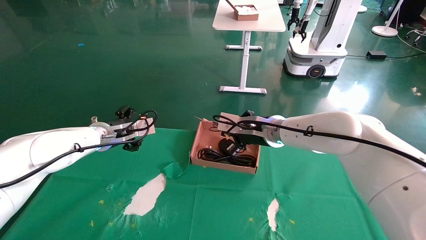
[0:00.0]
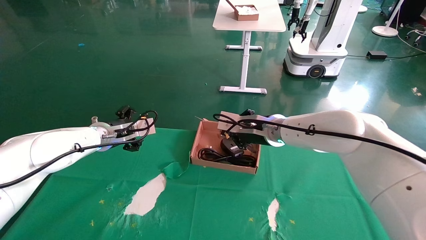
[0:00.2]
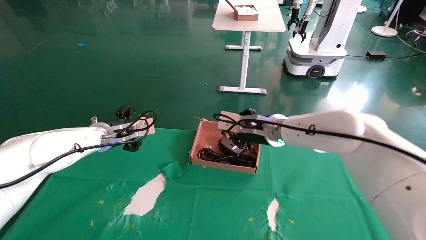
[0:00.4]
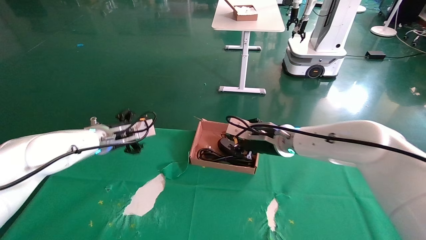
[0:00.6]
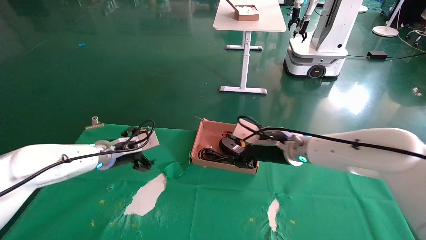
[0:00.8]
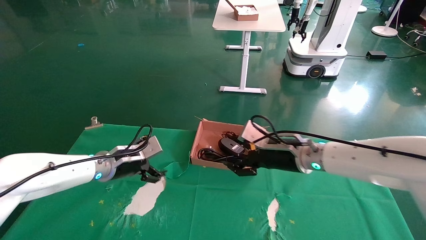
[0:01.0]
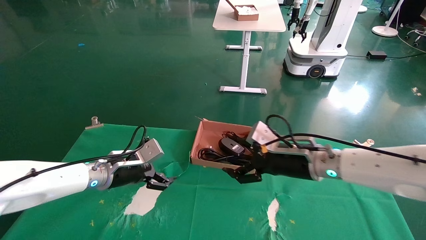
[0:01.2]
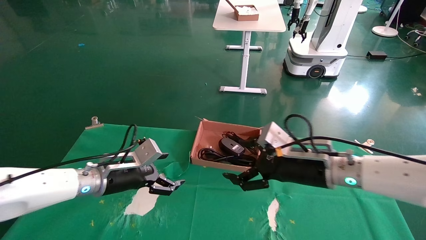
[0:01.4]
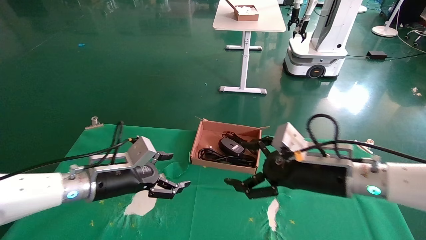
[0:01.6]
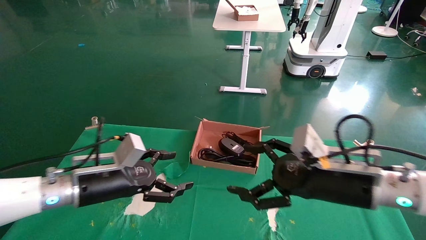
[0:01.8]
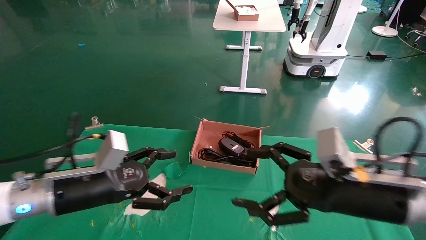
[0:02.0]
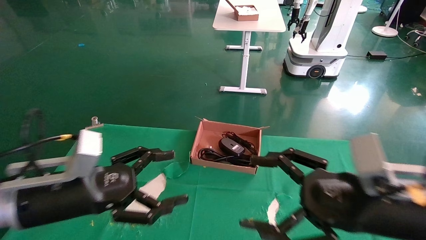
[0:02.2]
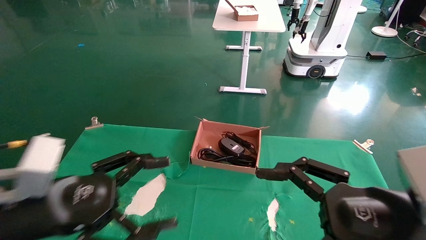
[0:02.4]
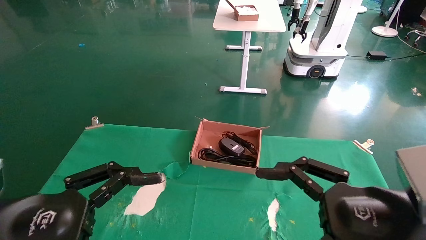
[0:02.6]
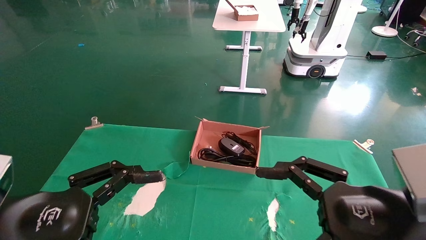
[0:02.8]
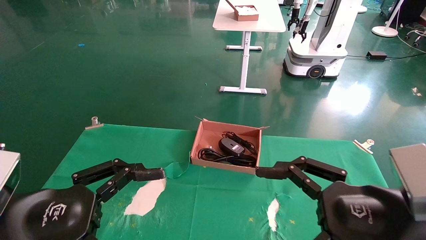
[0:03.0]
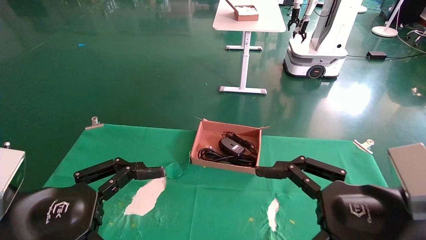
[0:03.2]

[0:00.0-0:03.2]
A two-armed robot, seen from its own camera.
0.0 to 1.6 s: The right gripper goes about 15 cm backward and to the right, and opens up, while the left gripper goes roughly 15 cm backward and downward.
1.6 to 3.2 s: The grippers both shift backward by some 15 cm.

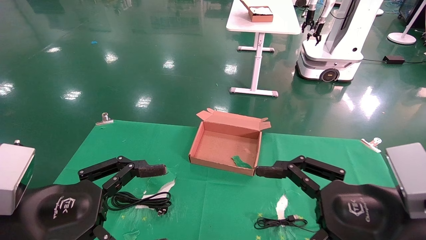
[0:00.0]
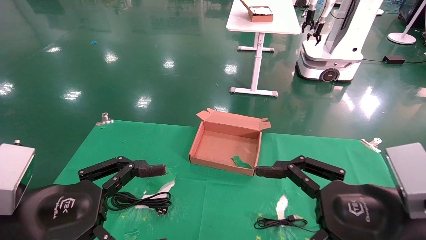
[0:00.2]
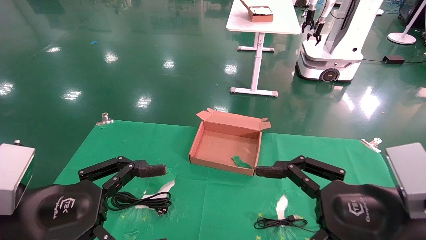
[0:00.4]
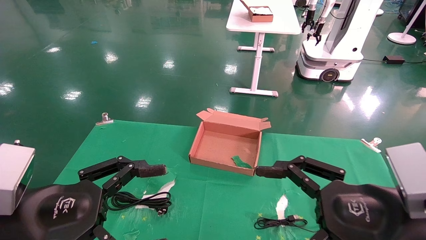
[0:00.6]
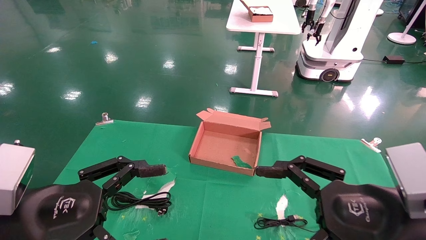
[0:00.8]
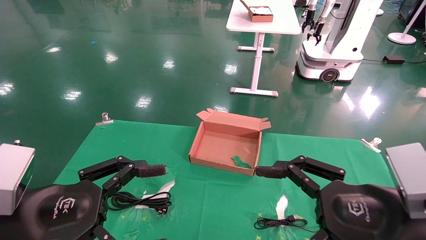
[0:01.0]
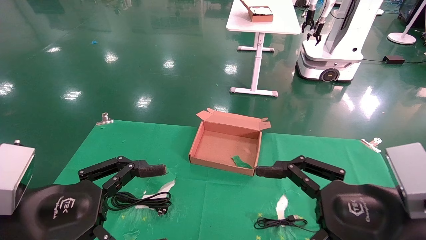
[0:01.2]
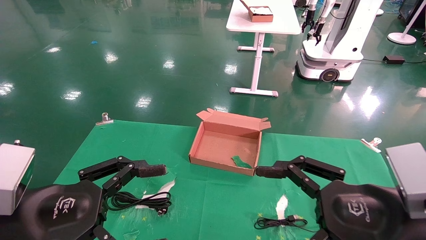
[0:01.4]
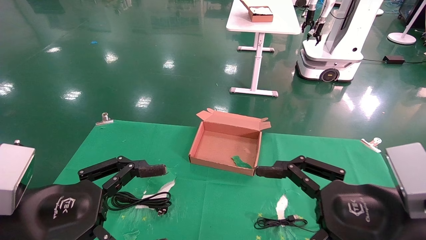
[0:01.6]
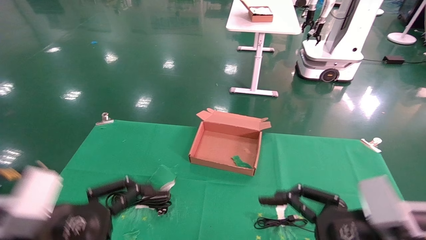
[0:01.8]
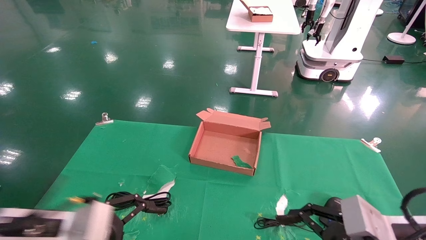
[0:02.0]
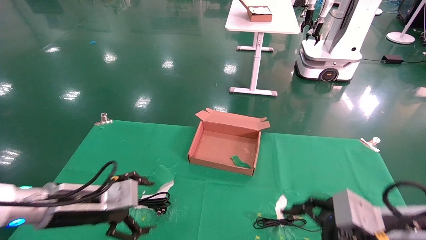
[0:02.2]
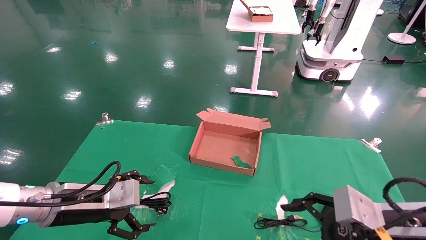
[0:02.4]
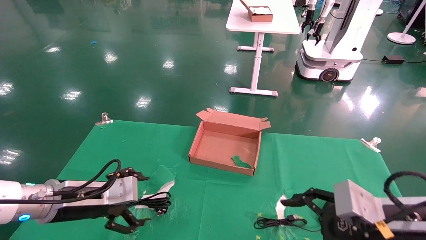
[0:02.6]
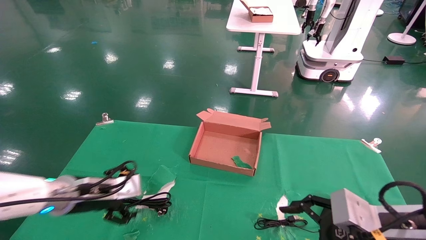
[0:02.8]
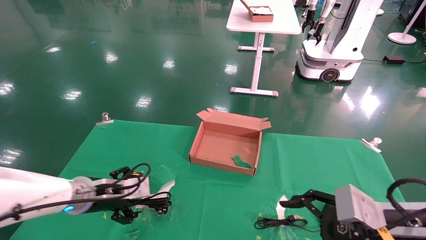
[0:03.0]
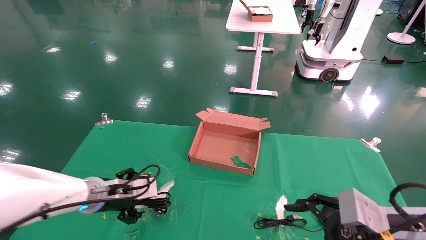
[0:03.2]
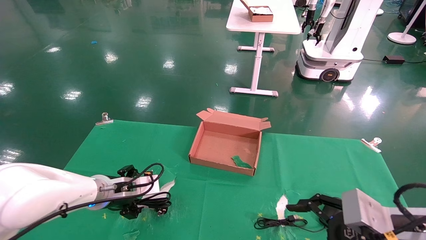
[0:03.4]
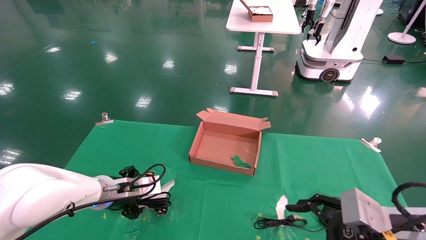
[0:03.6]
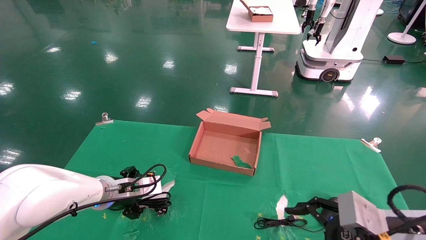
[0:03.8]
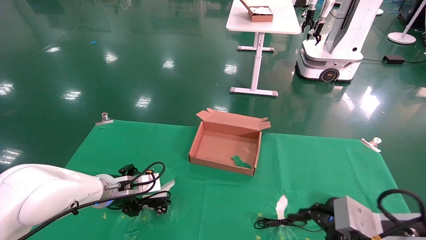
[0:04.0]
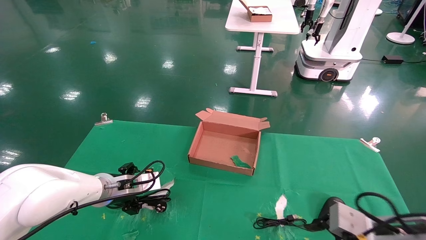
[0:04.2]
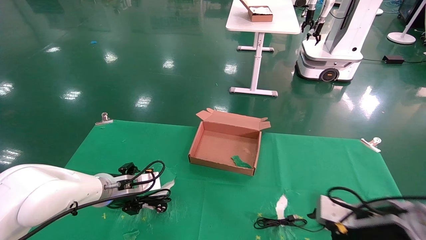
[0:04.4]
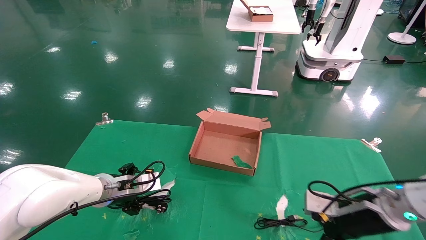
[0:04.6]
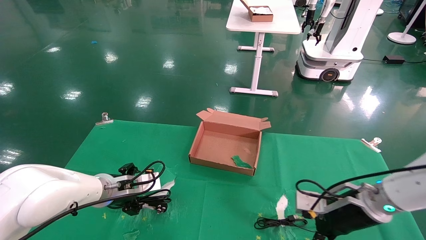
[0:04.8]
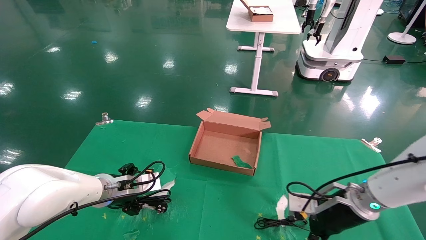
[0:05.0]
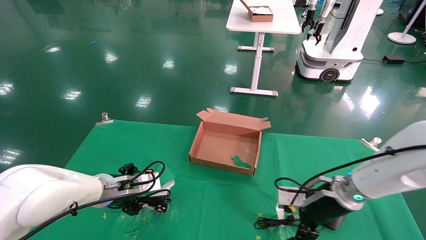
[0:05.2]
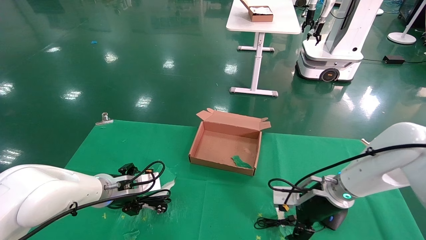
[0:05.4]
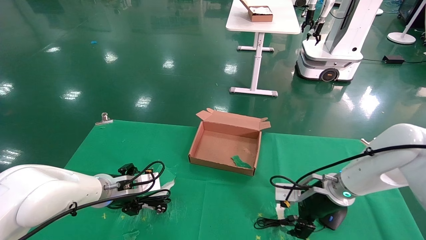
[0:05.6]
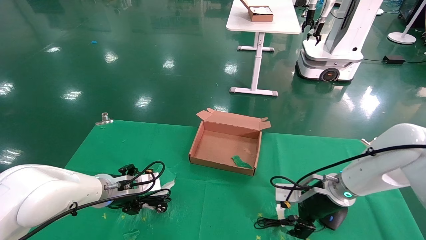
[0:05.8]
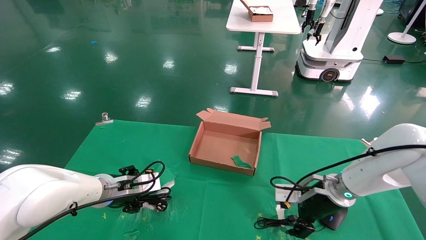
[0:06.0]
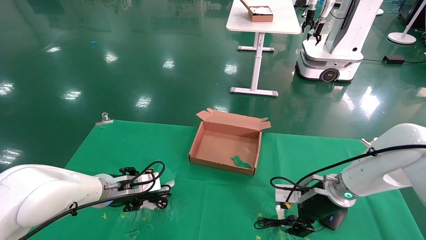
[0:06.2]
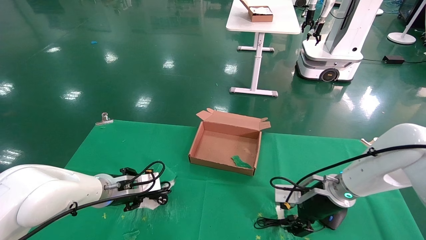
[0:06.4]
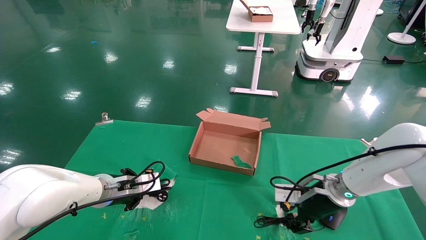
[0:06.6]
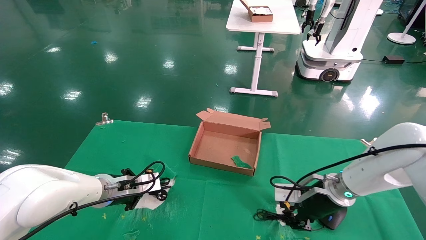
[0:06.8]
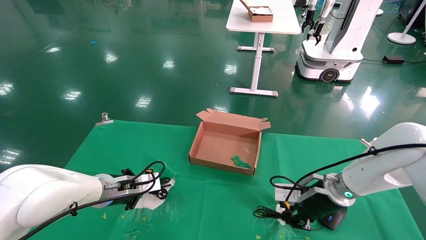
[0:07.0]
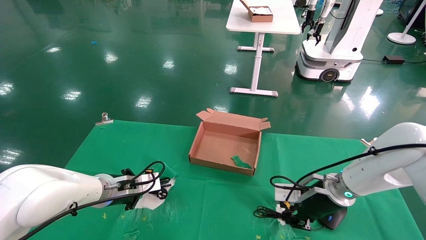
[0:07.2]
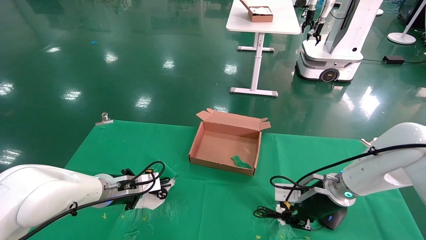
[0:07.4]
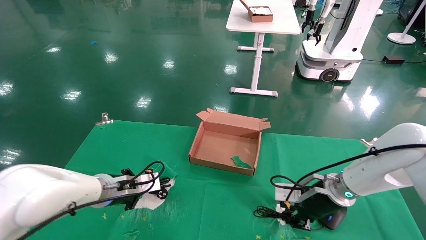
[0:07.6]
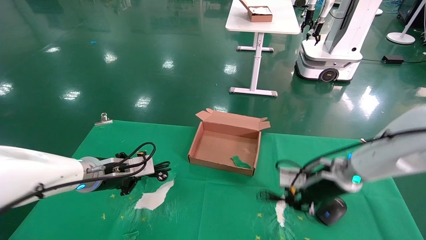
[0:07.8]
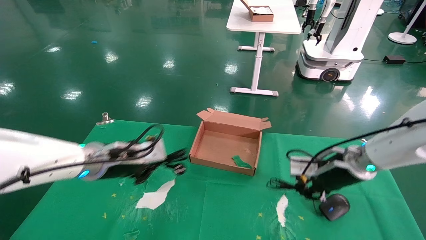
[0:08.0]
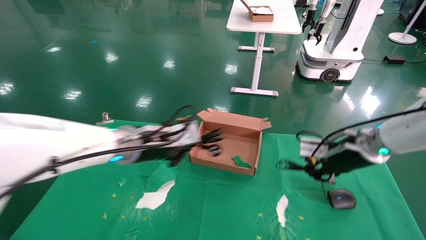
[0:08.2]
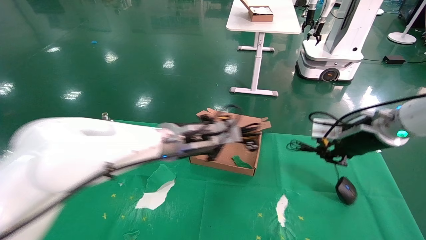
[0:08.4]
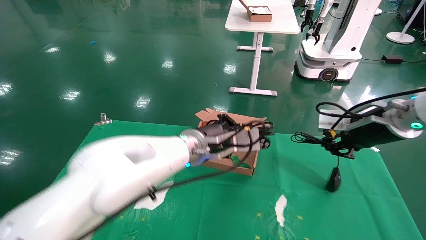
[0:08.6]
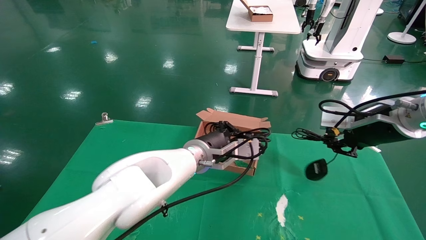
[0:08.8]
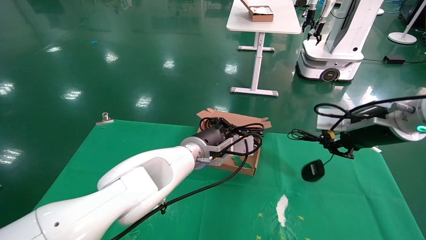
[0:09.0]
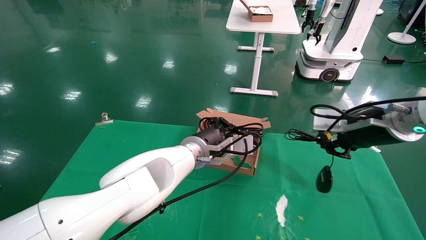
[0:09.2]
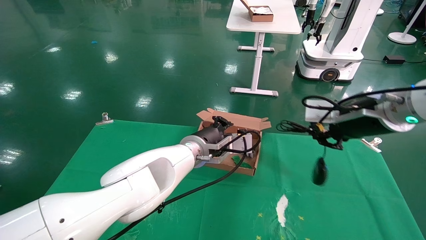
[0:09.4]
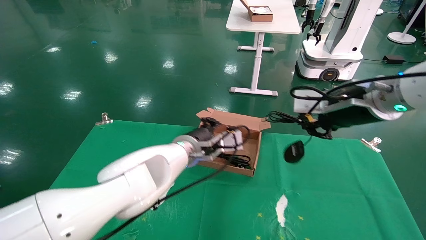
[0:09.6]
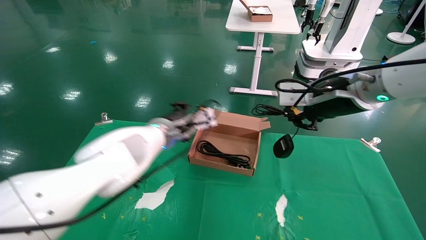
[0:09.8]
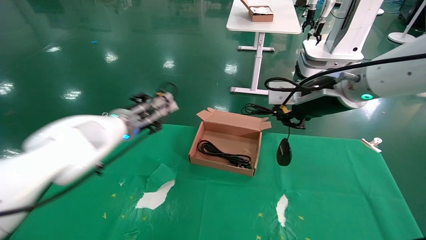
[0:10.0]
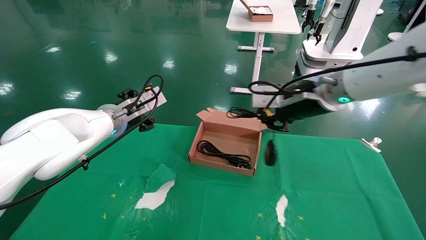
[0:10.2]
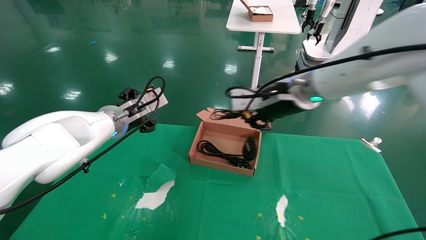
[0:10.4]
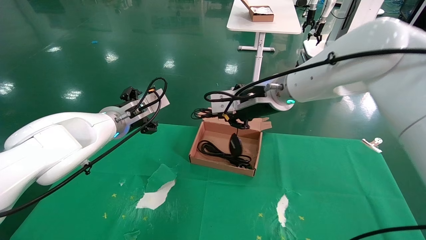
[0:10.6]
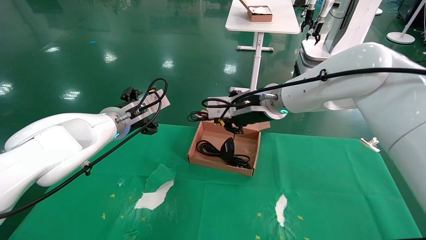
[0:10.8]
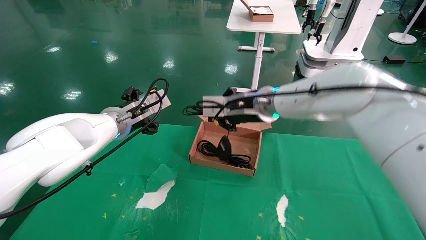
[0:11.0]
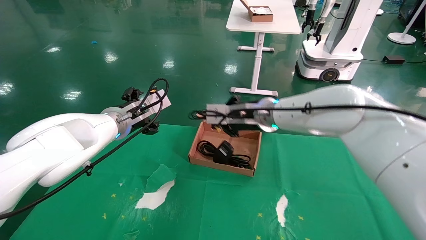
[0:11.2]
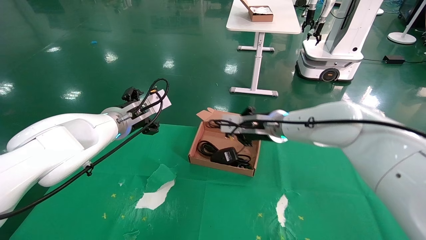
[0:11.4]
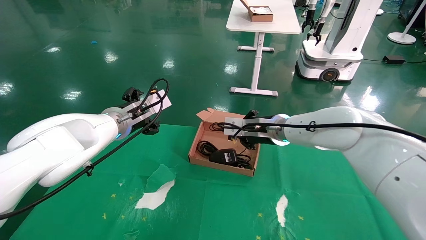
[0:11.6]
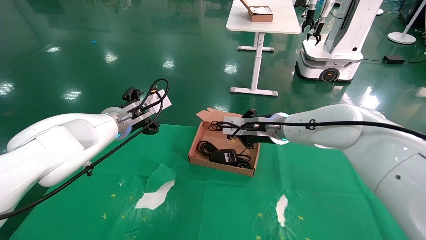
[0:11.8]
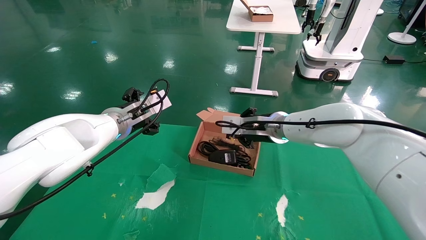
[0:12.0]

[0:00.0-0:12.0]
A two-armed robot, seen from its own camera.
Step, 2.0 to 7.4 s: Grab and lift both the mouse and power cord from the accessory packaging area at the same time.
1.6 to 3.0 s: The right gripper moves some 5 cm. Meanwhile the left gripper goes about 20 cm forward.
3.0 to 4.4 s: The right gripper heads forward, covering roughly 10 cm.
4.4 to 6.0 s: The right gripper travels forward and to the left by about 15 cm.
6.0 to 7.6 s: The left gripper closes its fingers, while the right gripper closes.
7.6 to 9.0 s: The right gripper moves upward, approximately 15 cm, while the left gripper is displaced to the right by about 20 cm.
9.0 to 10.4 s: The two grippers go some 15 cm to the left. The left gripper opens.
10.4 to 12.0 s: The right gripper is displaced downward and forward by roughly 10 cm.

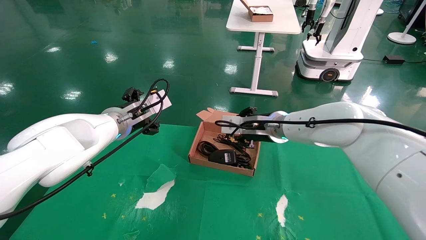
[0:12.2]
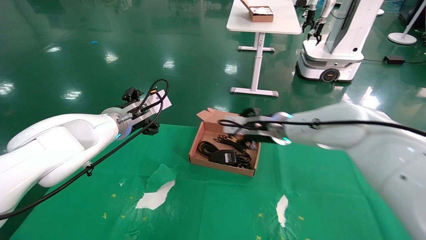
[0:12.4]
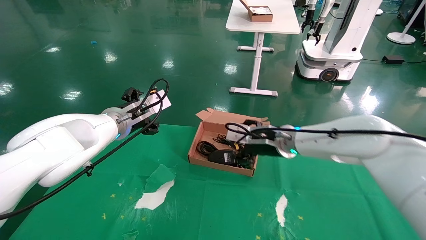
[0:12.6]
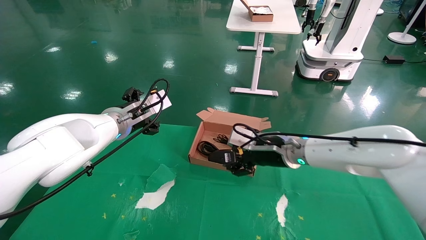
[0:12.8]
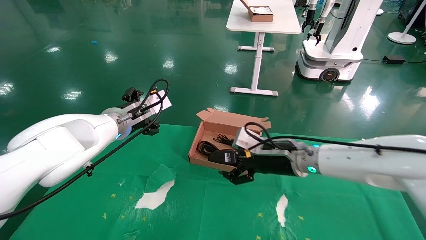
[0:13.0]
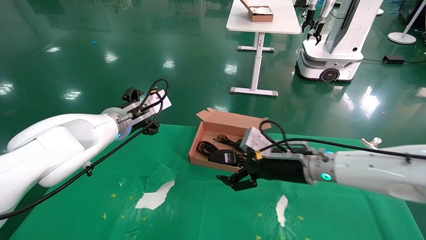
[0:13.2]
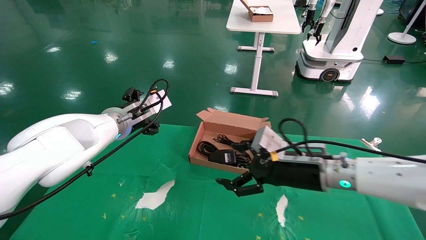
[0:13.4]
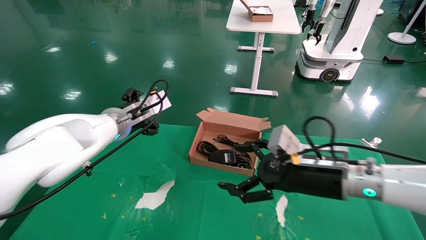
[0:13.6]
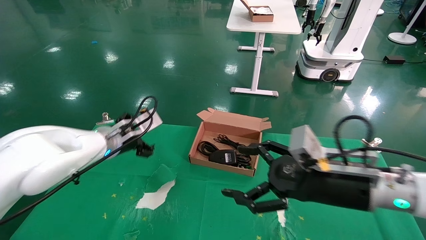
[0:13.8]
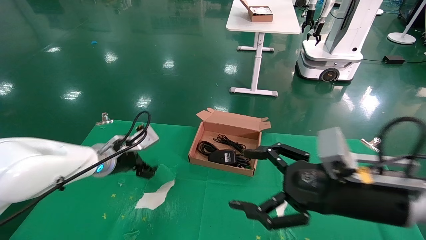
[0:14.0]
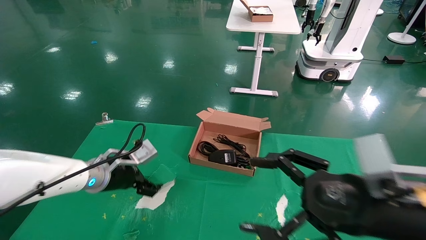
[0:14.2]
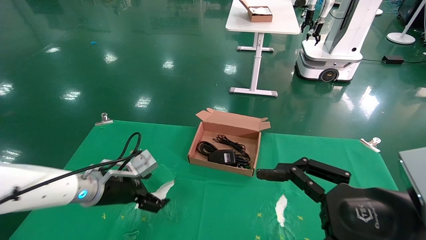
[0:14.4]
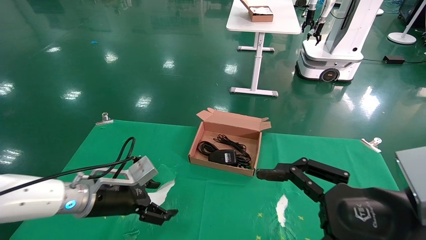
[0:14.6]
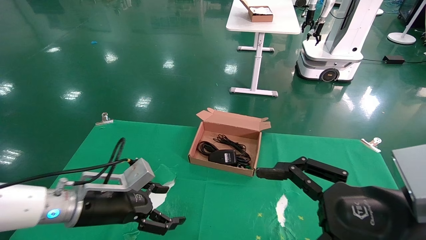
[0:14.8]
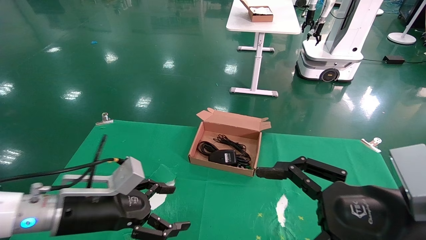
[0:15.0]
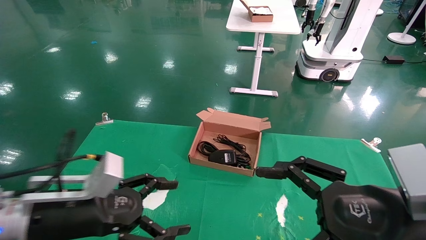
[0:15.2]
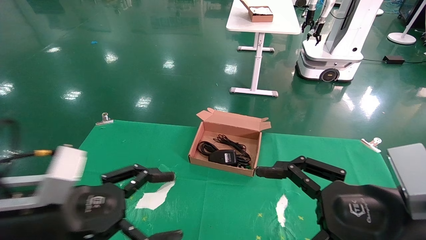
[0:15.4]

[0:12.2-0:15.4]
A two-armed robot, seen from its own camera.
12.2 to 13.8 s: The left gripper moves downward, roughly 5 cm; the right gripper moves backward and to the right, about 20 cm, and opens its fingers.
13.8 to 15.4 s: The right gripper is displaced backward by roughly 10 cm; the left gripper travels backward by roughly 20 cm.
